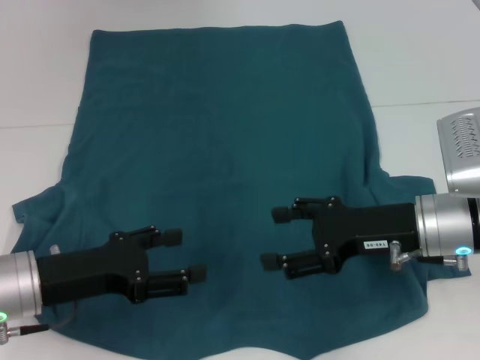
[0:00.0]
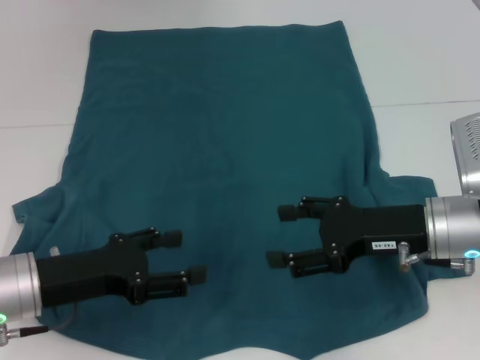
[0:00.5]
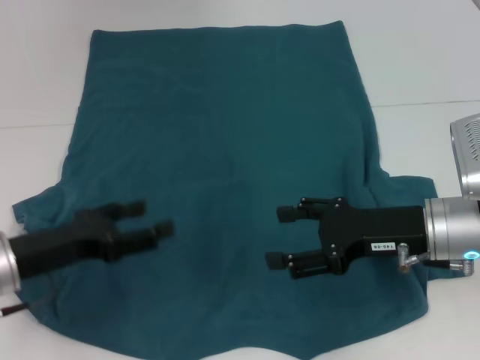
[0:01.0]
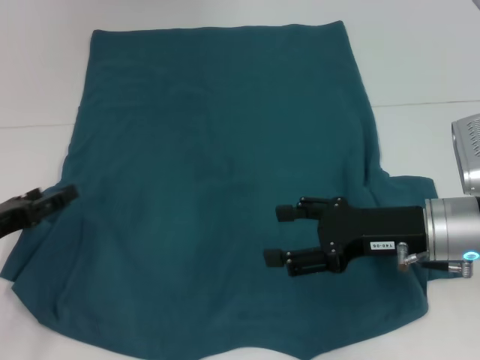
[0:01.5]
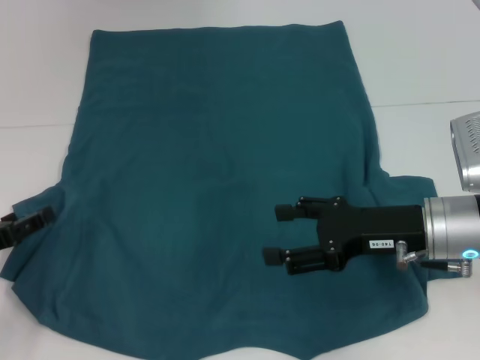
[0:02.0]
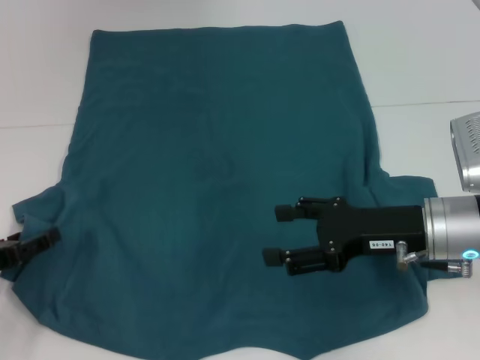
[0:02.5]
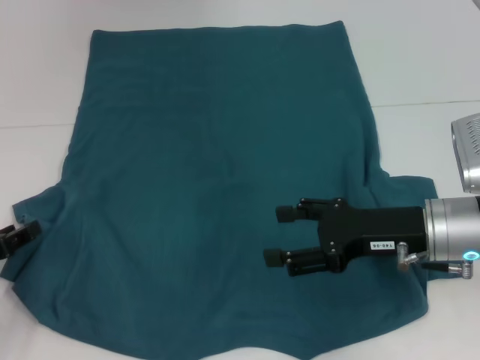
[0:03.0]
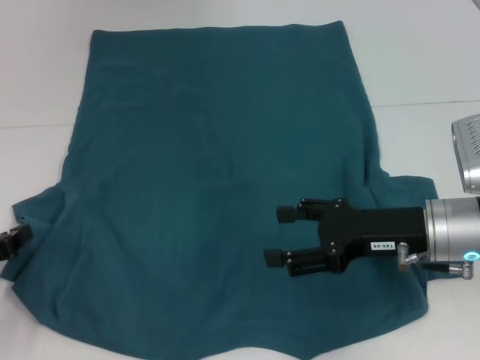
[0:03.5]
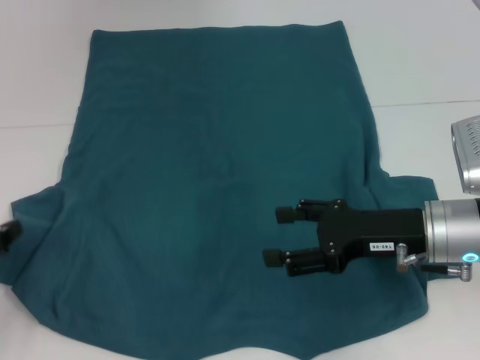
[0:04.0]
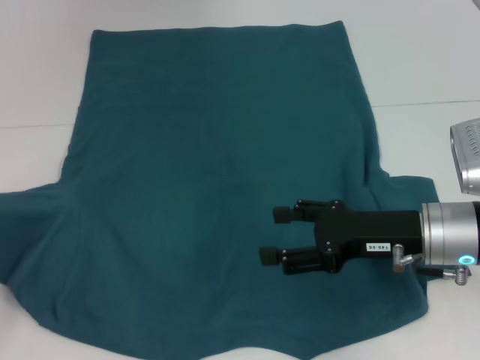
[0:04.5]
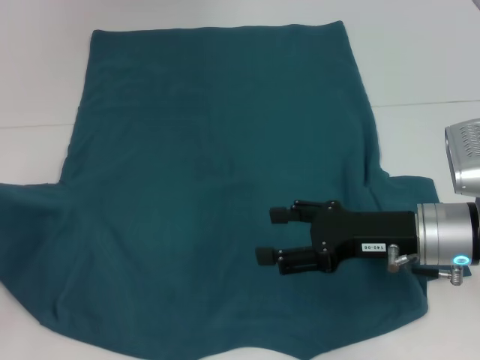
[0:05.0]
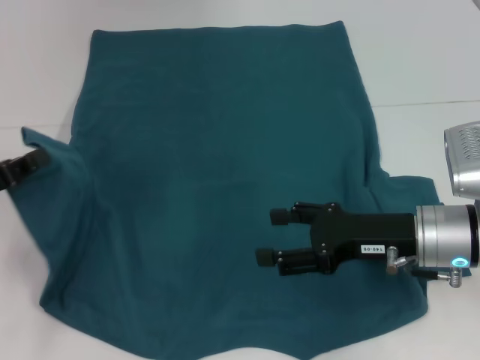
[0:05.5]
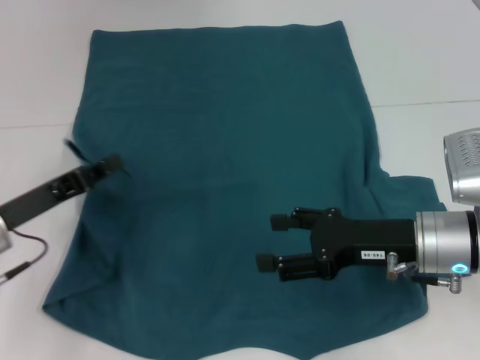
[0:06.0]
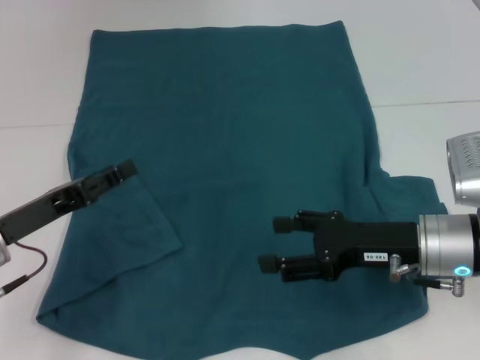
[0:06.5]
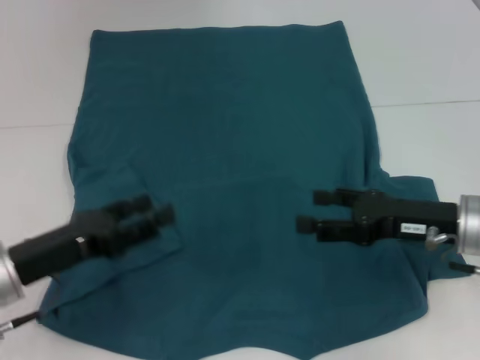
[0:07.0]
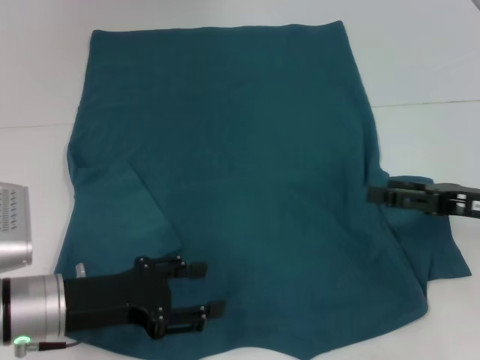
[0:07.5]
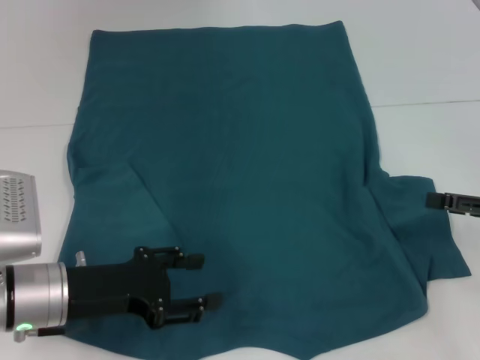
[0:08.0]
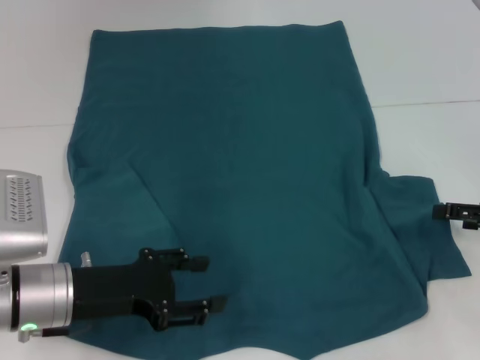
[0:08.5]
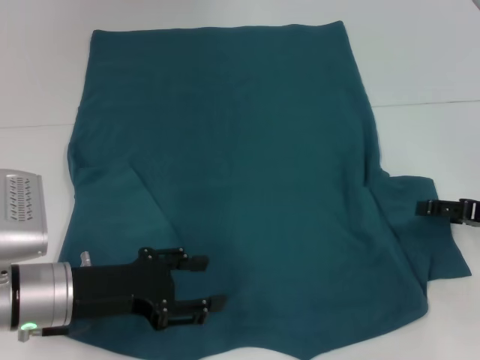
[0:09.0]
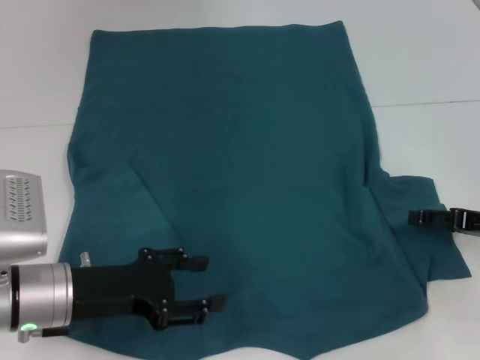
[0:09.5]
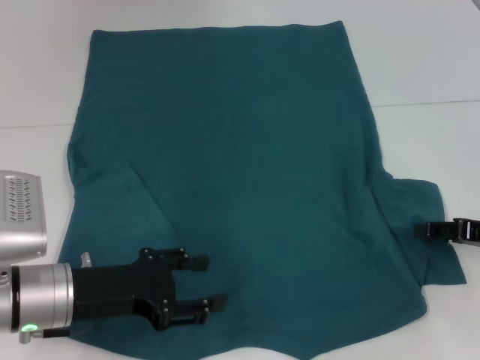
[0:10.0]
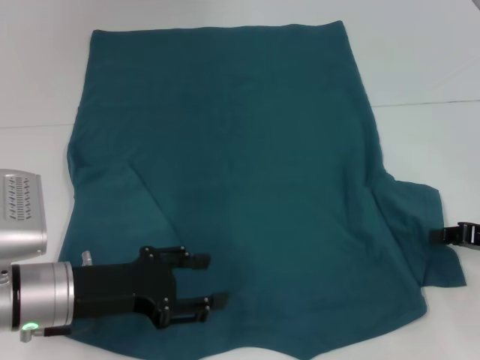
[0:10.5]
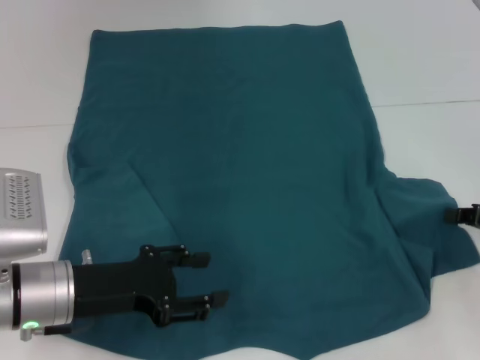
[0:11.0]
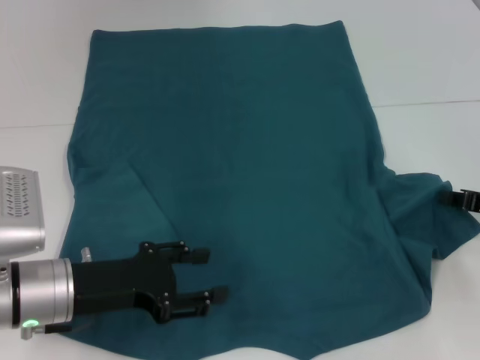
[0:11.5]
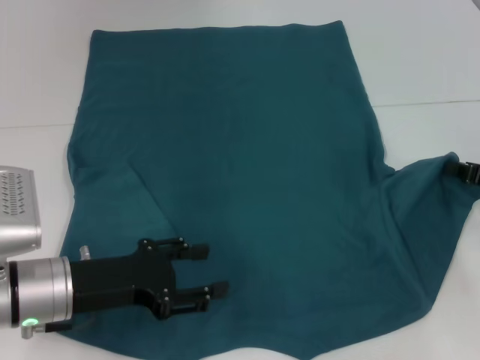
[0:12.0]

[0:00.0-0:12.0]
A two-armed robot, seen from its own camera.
Step, 0:00.0 to 0:06.0: Fold the bottom left sleeve with your left hand.
0:00.0 to 0:02.0: The left gripper shifts roughly 10 cm to the left.
0:02.0 to 0:04.0: The left gripper closes.
0:04.0 to 0:06.0: The left gripper shifts about 10 cm to the right.
0:06.0 to 0:08.0: The right gripper moves to the right, roughly 15 cm. Meanwhile the left gripper moves to the right, about 5 cm, and opens up.
0:08.0 to 0:10.0: The grippers move only a little.
0:10.0 to 0:12.0: The right gripper closes up.

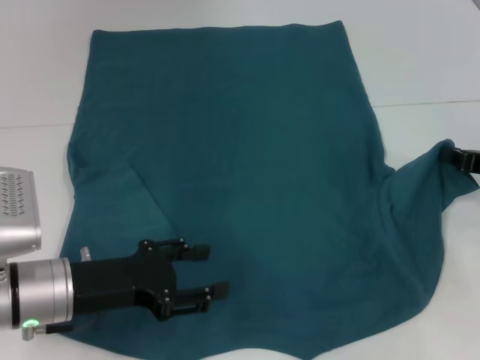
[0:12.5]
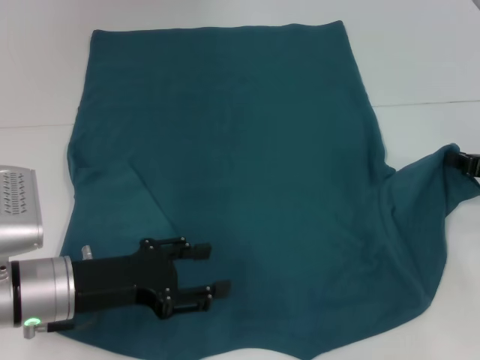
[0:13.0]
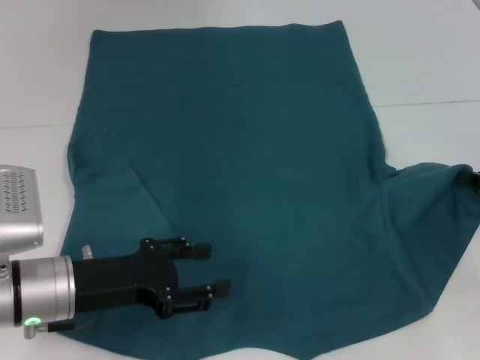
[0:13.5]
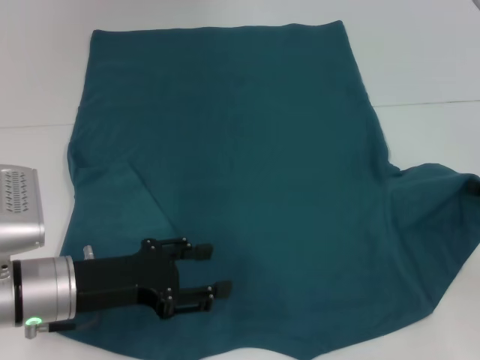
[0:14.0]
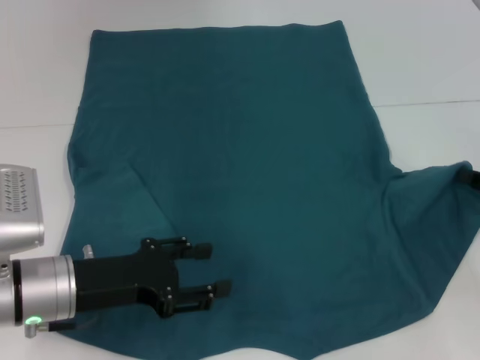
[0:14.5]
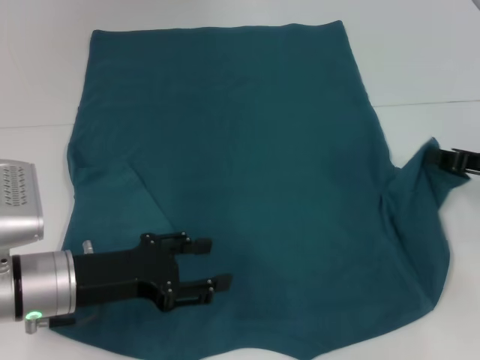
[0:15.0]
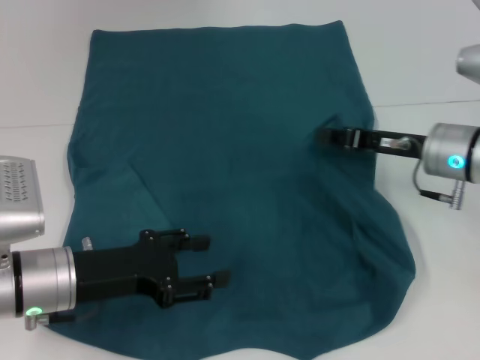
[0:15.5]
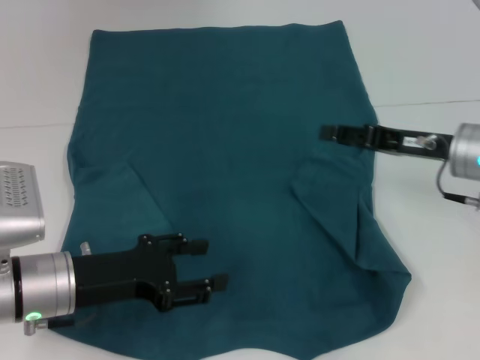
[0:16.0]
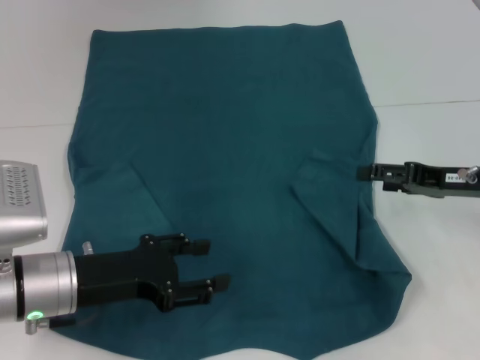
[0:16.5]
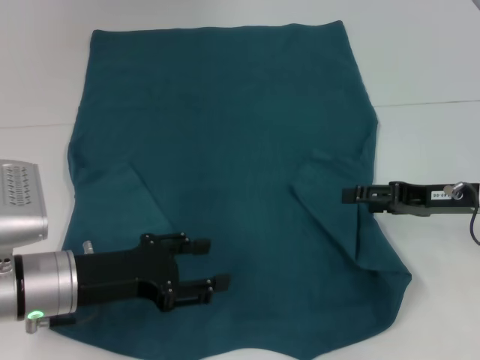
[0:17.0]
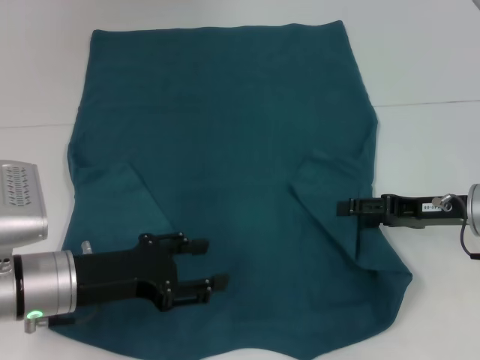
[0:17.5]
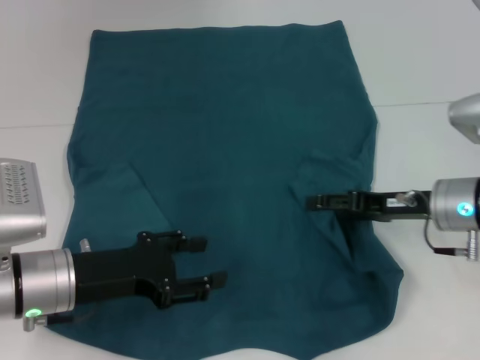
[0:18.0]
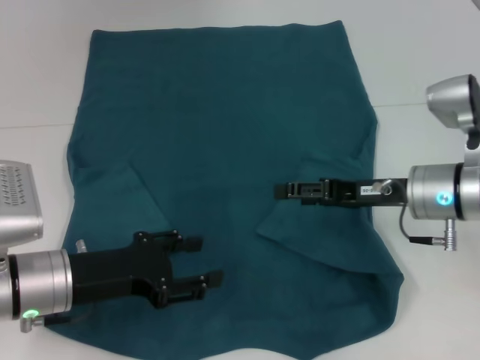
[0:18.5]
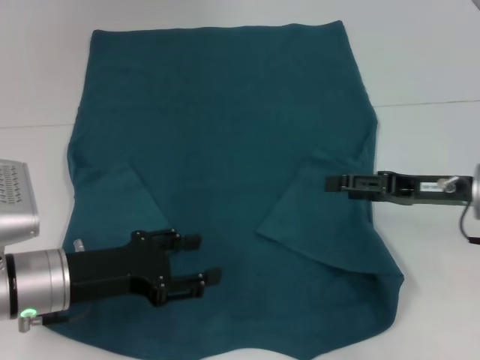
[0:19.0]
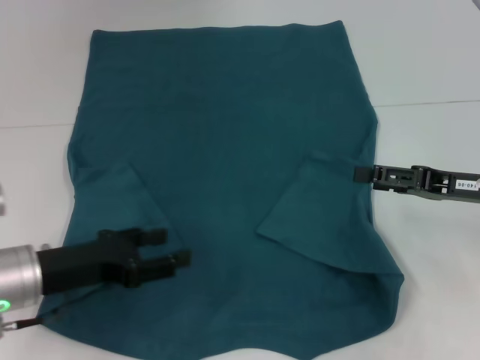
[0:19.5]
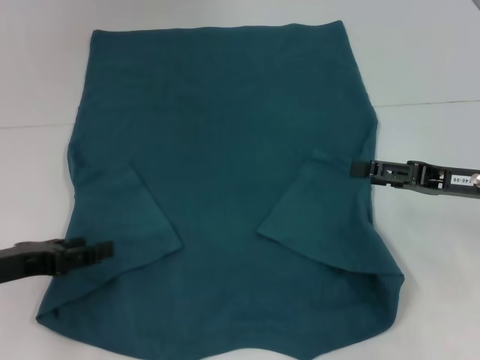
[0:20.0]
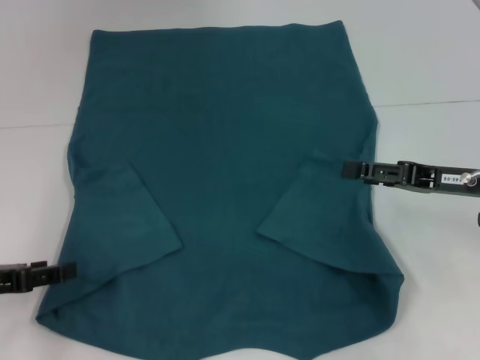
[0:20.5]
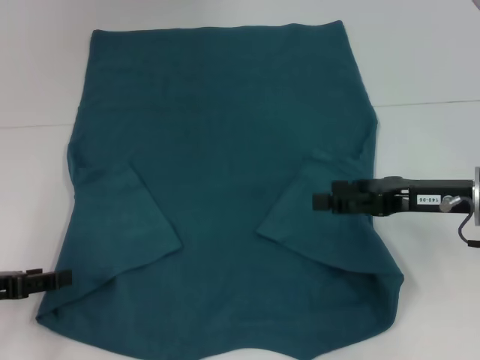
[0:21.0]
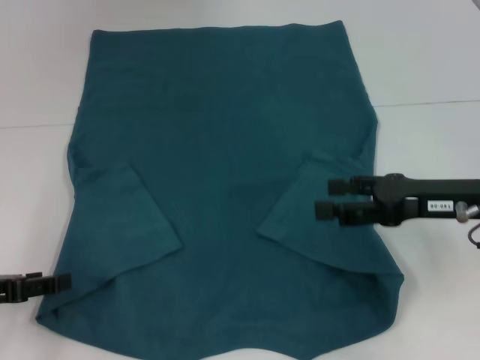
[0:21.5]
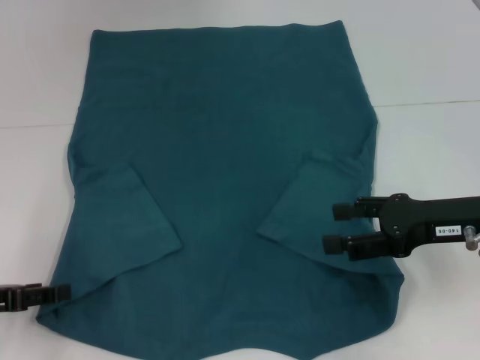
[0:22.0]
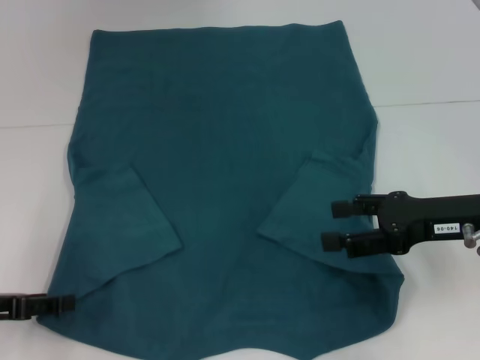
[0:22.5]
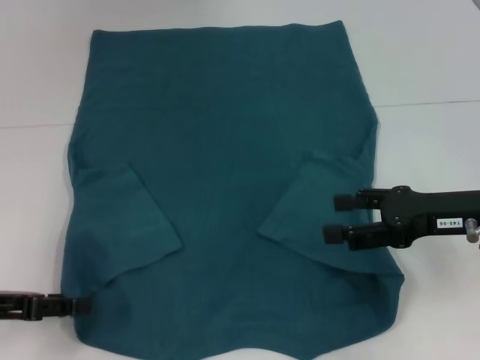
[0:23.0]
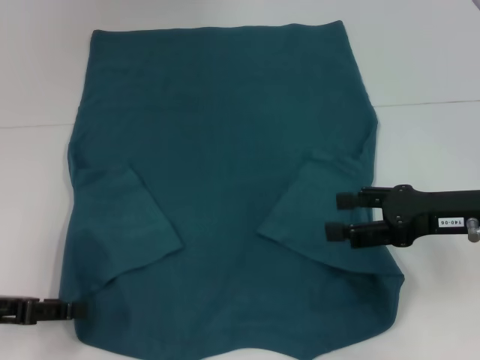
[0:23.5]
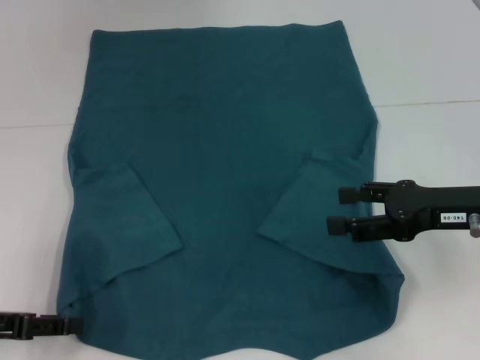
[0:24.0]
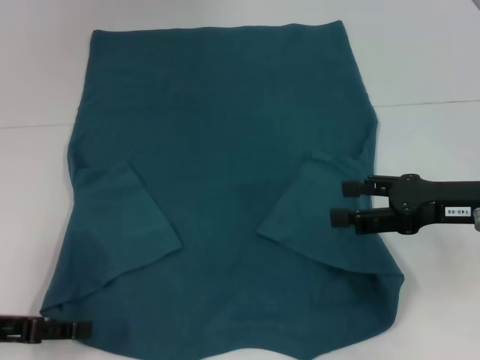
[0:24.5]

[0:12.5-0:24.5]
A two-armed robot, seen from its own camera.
Step, 0:12.5 to 0:18.5: Fold the bottom right sleeve to the right.
0:12.5 to 0:14.5: The grippers stay close to where they were, moving slightly.
0:14.5 to 0:16.5: The right gripper moves to the left, roughly 5 cm, and opens up.
0:16.5 to 0:18.5: The right gripper travels to the left by some 10 cm.
0:18.5 to 0:20.5: The left gripper goes roughly 10 cm to the left. Meanwhile the right gripper travels to the right by approximately 5 cm.
0:22.5 to 0:24.5: The grippers stay close to where they were, moving slightly.

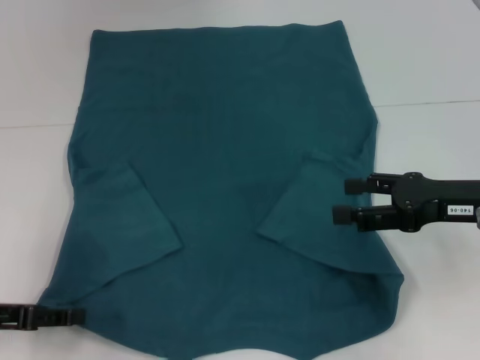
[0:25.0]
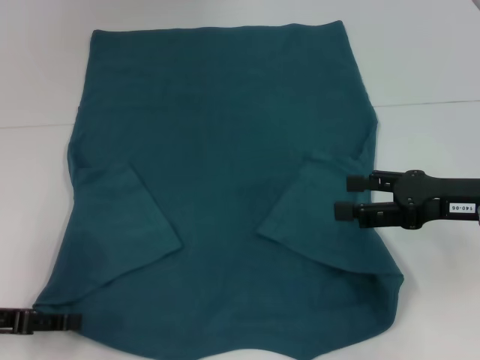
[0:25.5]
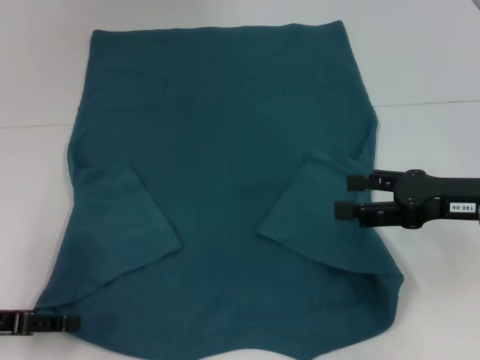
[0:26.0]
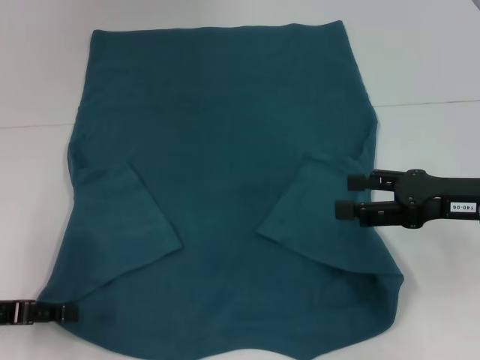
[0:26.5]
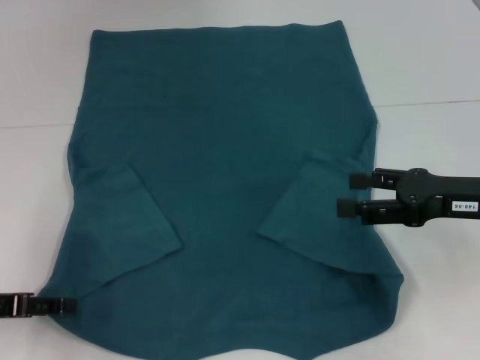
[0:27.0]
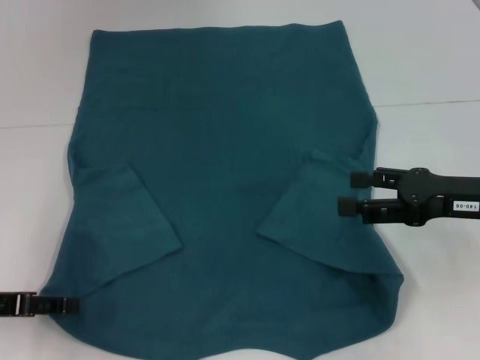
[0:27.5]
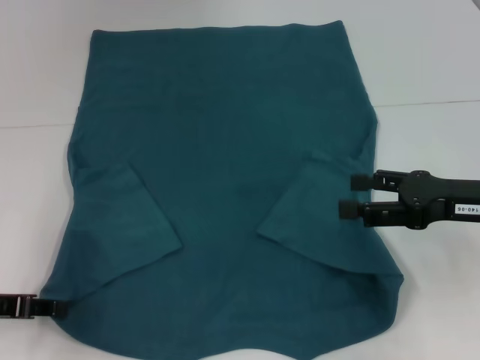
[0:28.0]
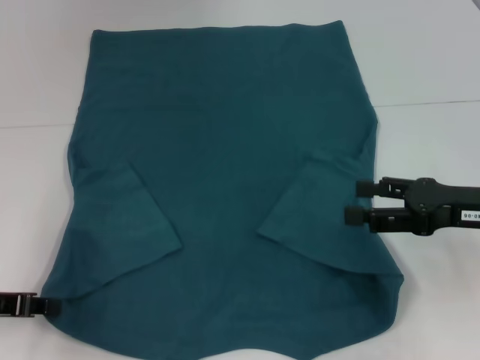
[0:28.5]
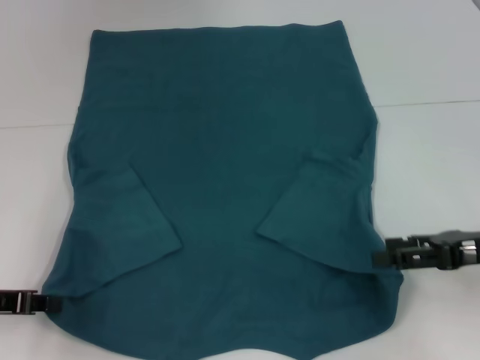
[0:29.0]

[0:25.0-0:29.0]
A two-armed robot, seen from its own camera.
Step, 0:25.0 to 0:28.0: Grab the bottom left corner with your left hand.
0:25.0 to 0:27.0: The grippers stay close to where they were, moving slightly.
